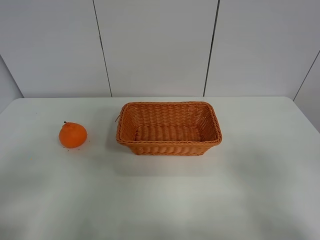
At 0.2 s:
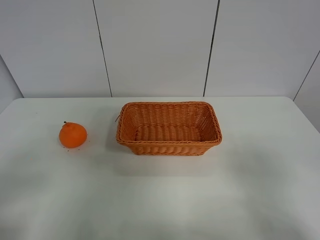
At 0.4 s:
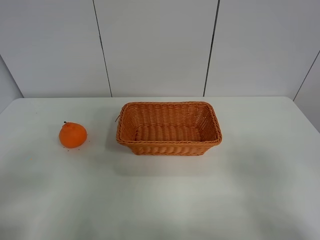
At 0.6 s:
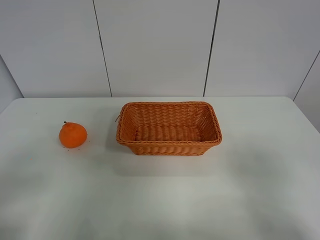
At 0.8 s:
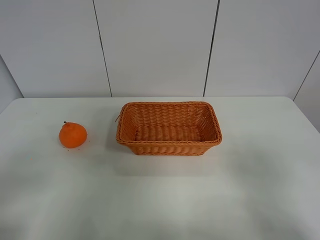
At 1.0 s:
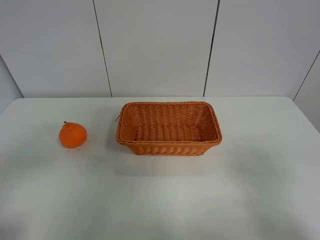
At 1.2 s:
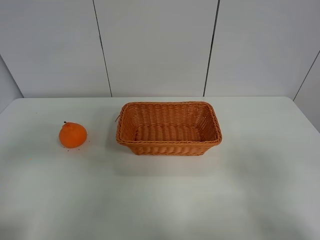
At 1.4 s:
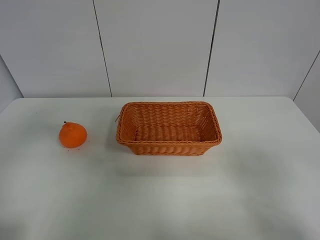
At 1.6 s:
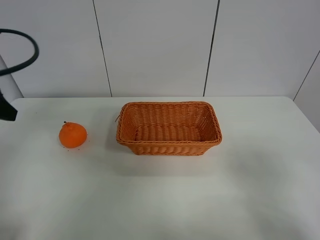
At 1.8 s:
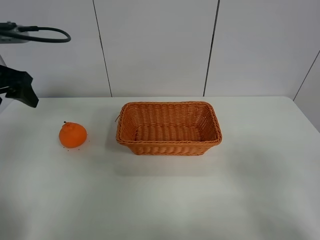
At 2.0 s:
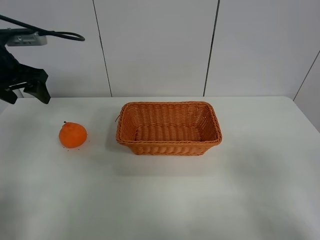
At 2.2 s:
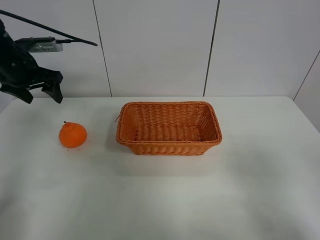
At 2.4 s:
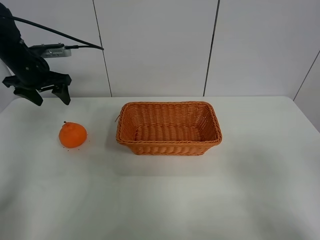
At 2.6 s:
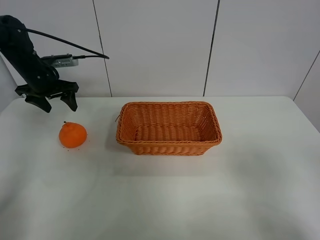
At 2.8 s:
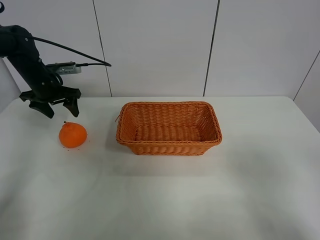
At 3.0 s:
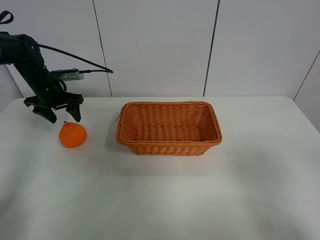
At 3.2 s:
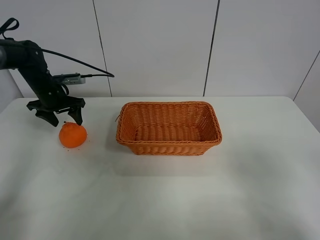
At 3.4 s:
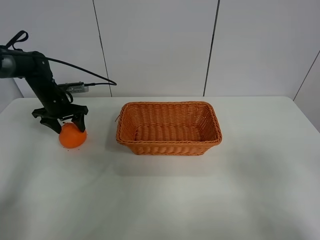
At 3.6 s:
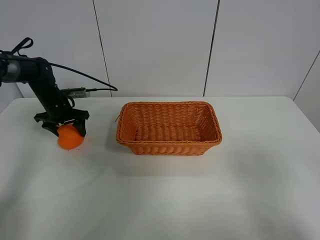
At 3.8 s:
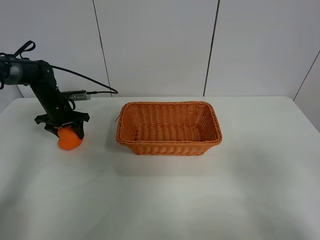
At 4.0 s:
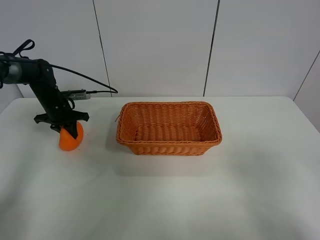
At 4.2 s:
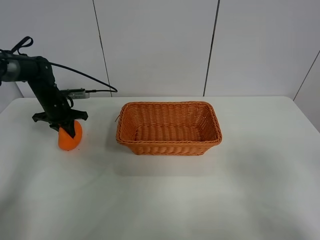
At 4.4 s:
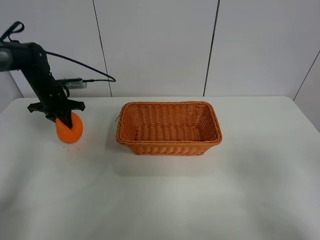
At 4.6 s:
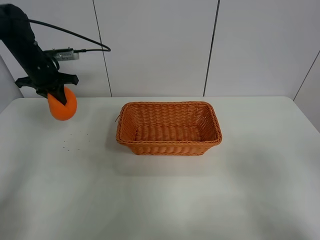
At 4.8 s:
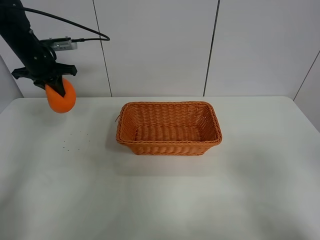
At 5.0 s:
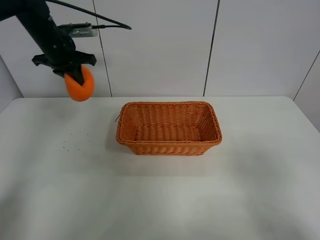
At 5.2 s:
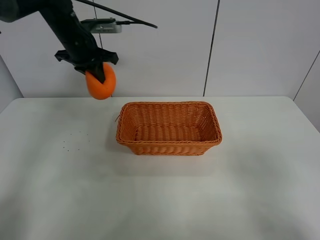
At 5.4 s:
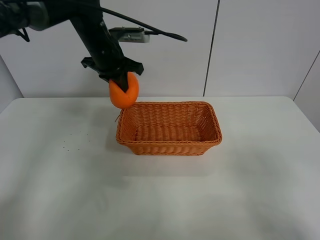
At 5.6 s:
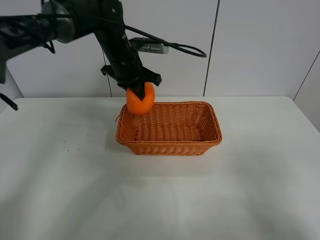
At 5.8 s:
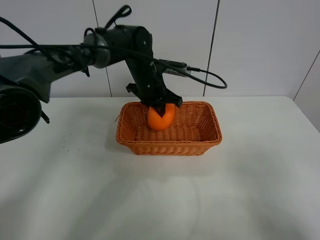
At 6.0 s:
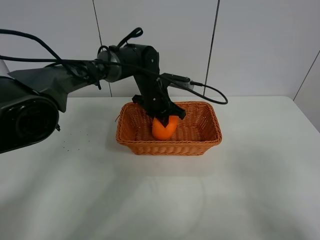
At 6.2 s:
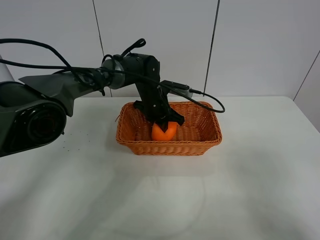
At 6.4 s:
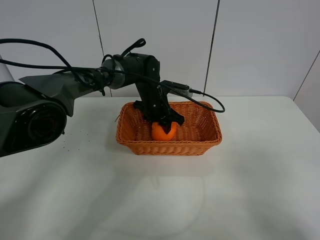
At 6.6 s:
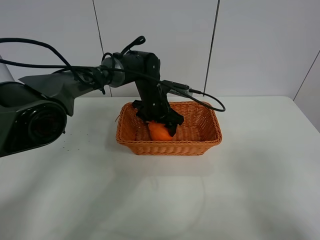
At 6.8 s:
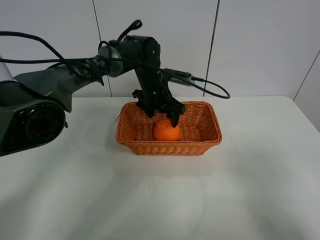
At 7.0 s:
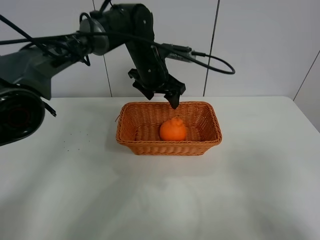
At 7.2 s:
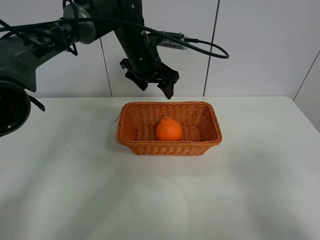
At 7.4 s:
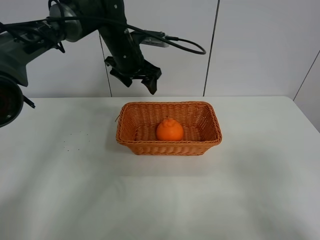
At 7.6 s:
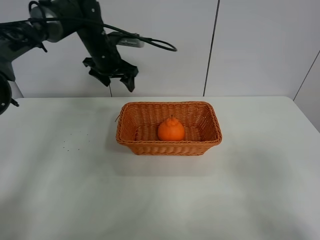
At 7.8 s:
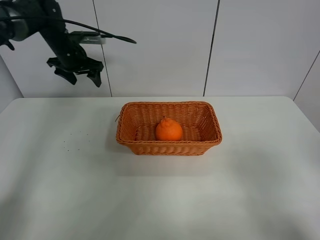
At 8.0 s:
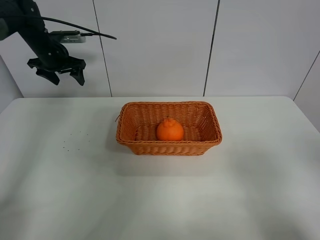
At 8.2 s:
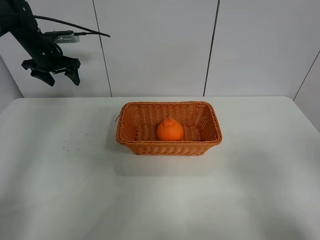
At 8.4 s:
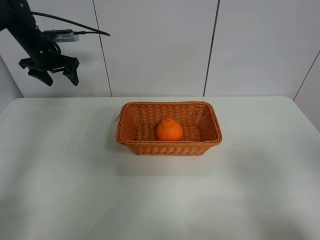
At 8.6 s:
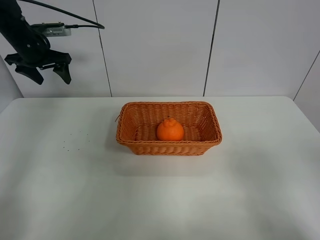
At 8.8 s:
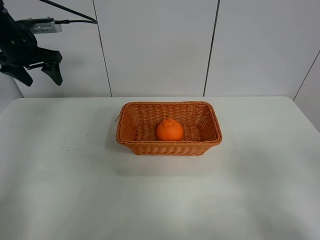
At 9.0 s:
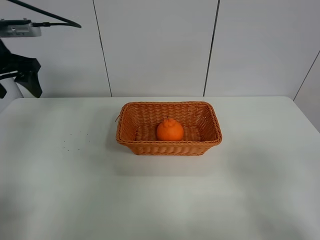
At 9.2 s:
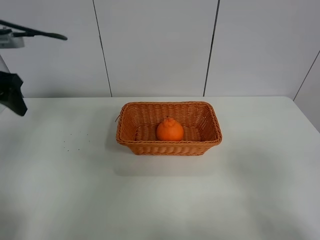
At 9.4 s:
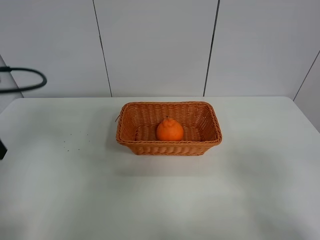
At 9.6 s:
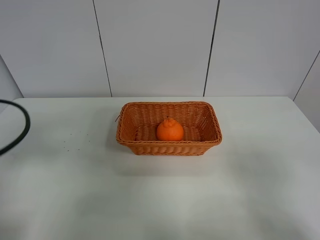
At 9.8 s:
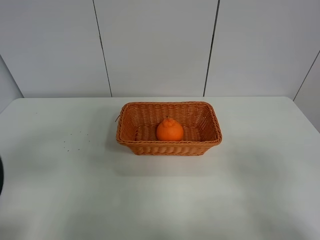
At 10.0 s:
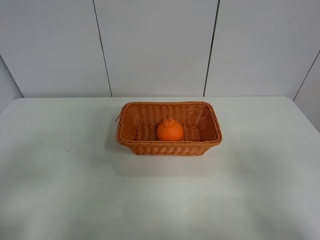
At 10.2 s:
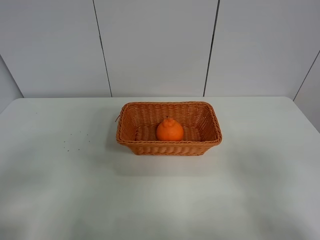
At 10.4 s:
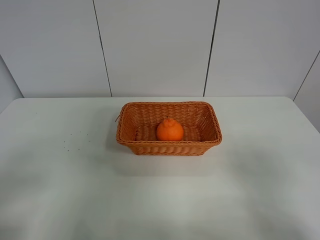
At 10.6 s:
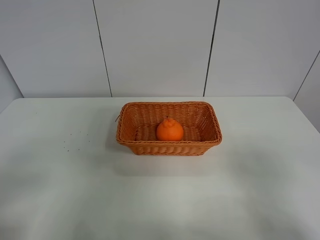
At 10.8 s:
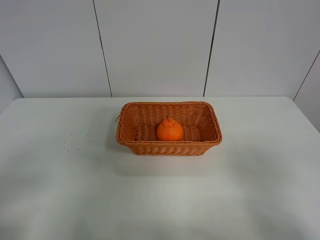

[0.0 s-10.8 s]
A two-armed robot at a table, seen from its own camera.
Task of the whole recording: left gripper grabs oranges and puts them in the basket.
Step, 0.0 to 4.0 s: Grasp the orange with left gripper.
Step, 4.2 to 7.6 s: Place the orange in the basket with left gripper.
0.0 to 1.6 s: The left gripper goes roughly 20 cm forward.
1.6 to 3.0 s: The left gripper is displaced forward and downward by about 30 cm.
3.0 to 4.6 s: The left gripper is displaced upward by approximately 5 cm, and closes.
4.6 to 6.2 s: The left gripper moves to the right, about 30 cm.
6.2 to 7.8 s: The left gripper heads to the left and upward, covering some 25 cm, and opens.
7.8 to 9.2 s: The left gripper heads backward, covering roughly 25 cm.
9.2 to 10.8 s: The left gripper goes about 25 cm backward.
